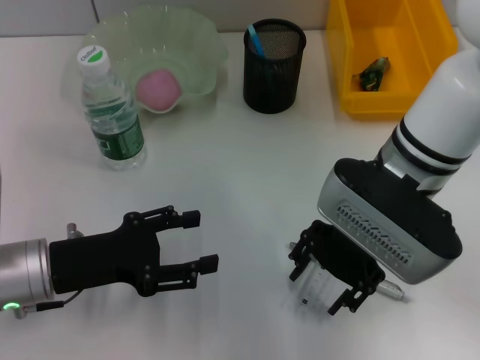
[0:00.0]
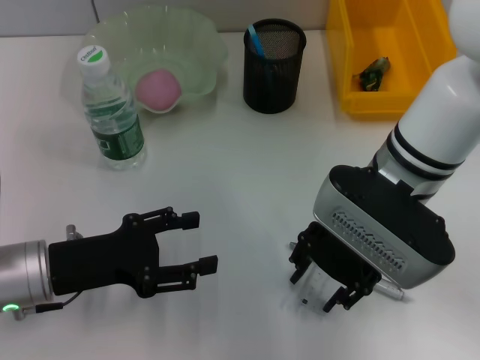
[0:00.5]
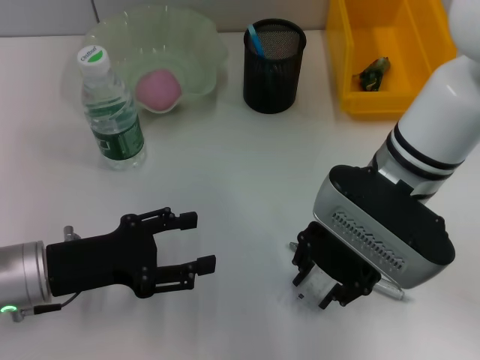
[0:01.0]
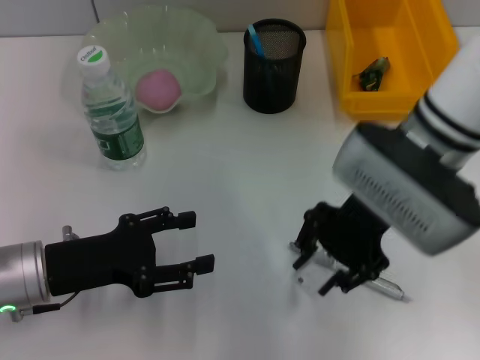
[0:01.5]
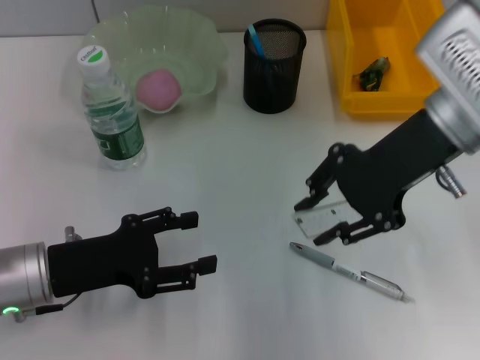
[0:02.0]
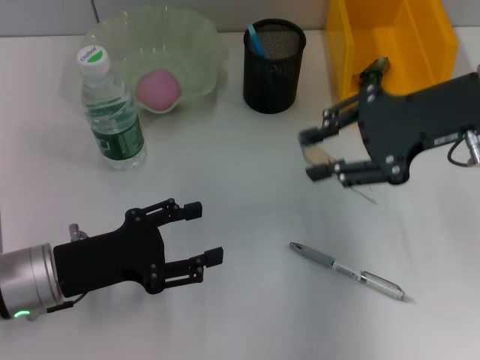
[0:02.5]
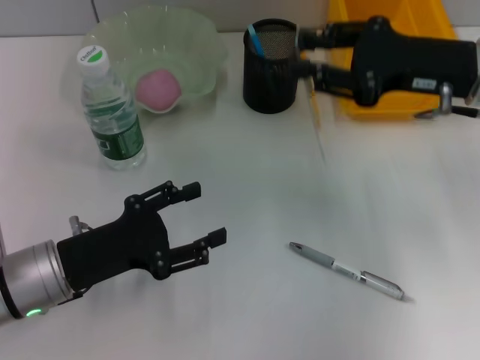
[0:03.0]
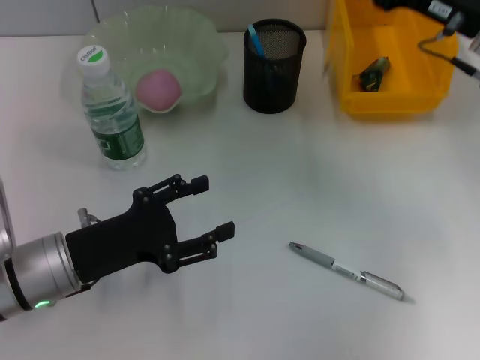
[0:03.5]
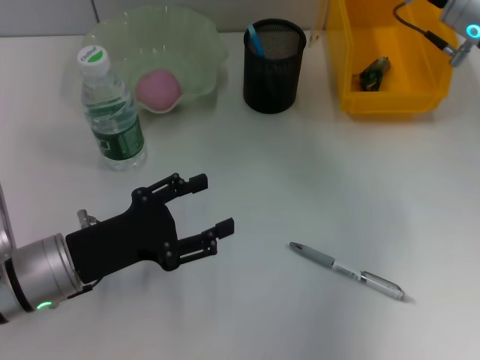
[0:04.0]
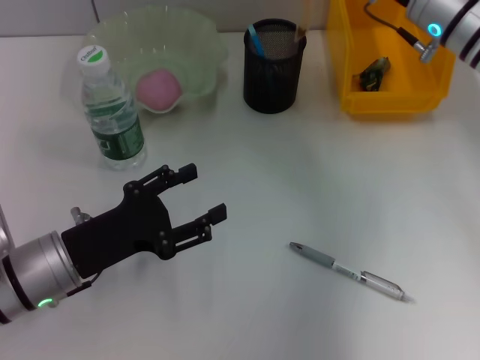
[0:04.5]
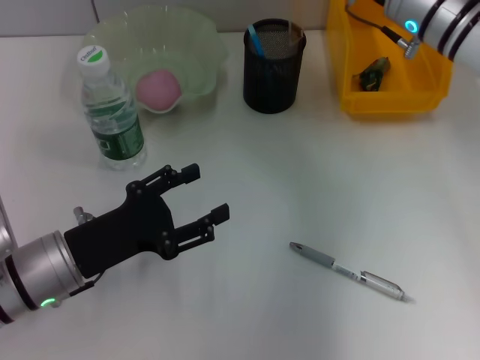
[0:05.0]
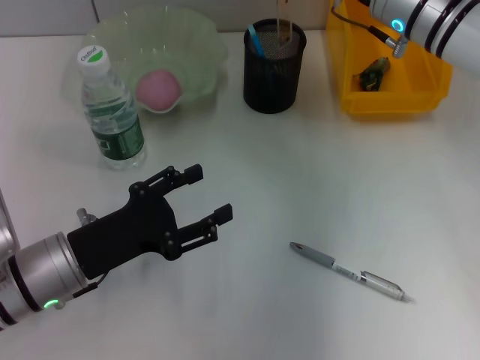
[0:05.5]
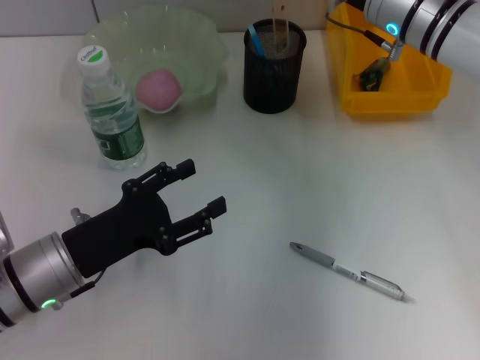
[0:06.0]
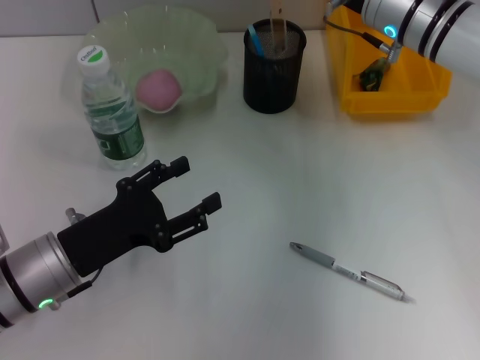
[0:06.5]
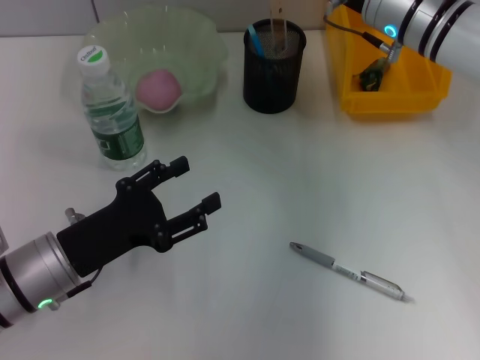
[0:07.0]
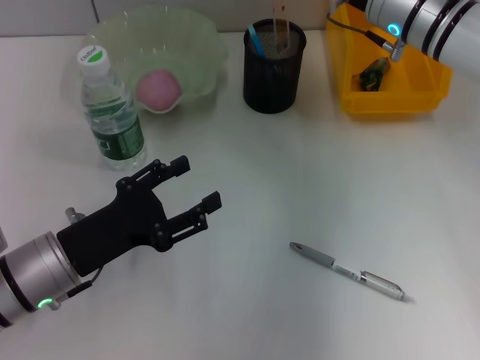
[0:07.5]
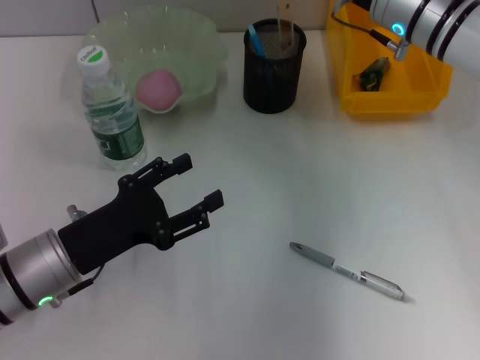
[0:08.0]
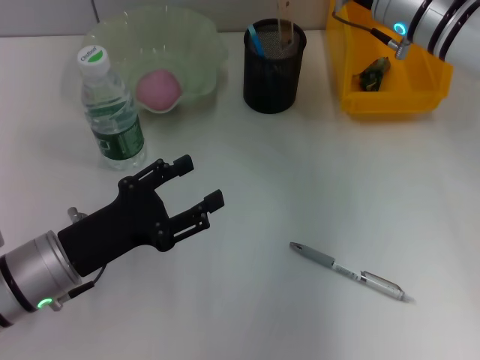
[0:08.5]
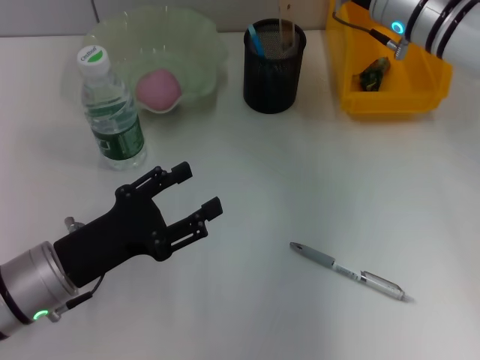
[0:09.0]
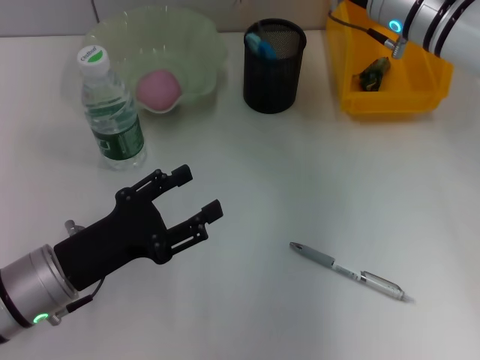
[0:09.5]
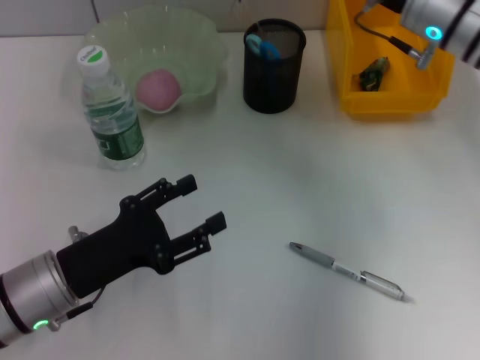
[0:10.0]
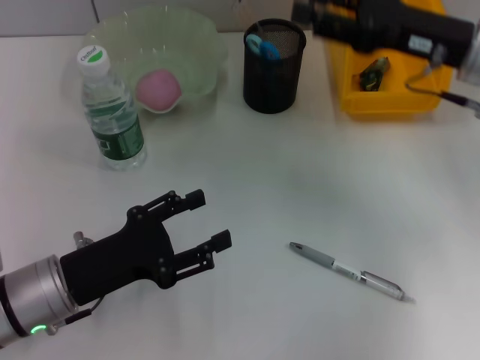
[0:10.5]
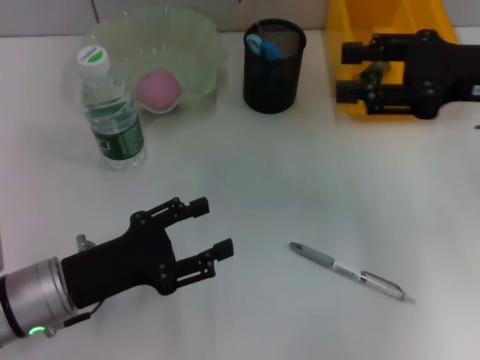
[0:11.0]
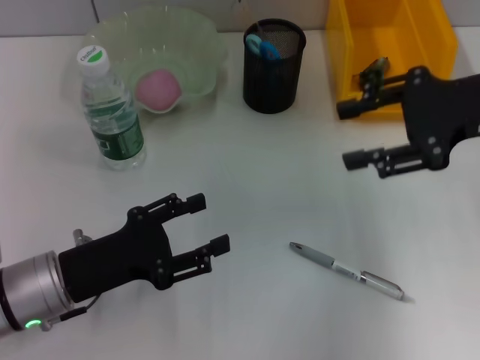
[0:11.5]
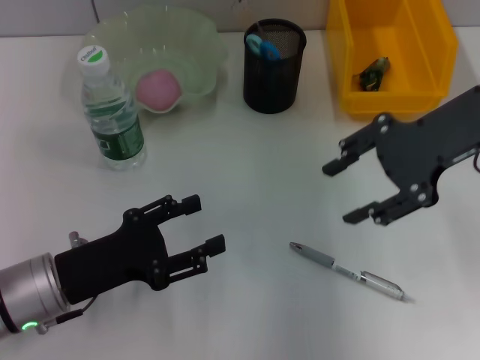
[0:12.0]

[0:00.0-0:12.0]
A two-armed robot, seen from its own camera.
Step, 0:01.5 to 0:10.0: Place the ruler into the pen holder with the right hand.
0:00.0 to 0:02.0: The right gripper moves upward and to the right, approximately 10 cm, and closes up.
0:02.0 to 0:04.0: The right gripper moves forward, roughly 5 cm.
0:04.0 to 0:06.0: The right gripper goes about 5 cm to the left.
0:06.0 to 0:08.0: Neither gripper changes place.
0:08.0 to 0:10.0: The grippers stay close to where they were, moving slightly.
0:10.0 to 0:12.0: The right gripper heads backward, covering roughly 5 cm.

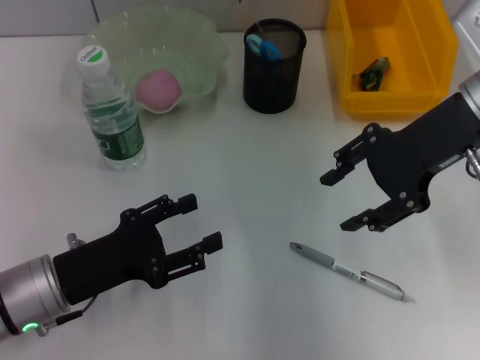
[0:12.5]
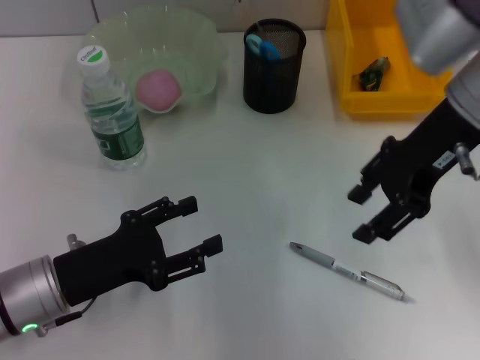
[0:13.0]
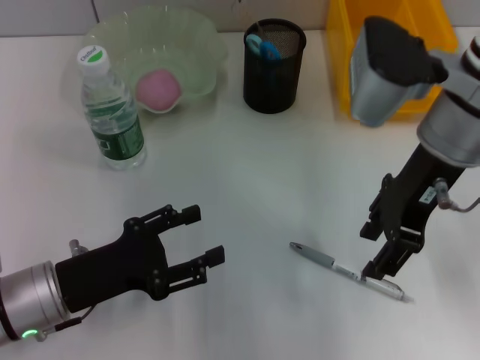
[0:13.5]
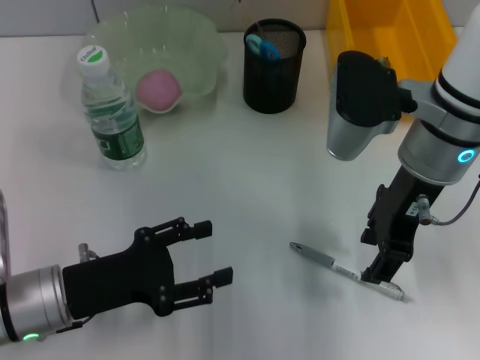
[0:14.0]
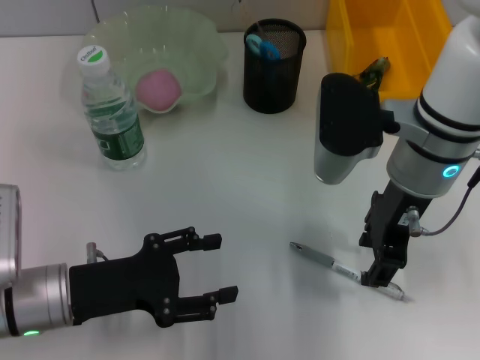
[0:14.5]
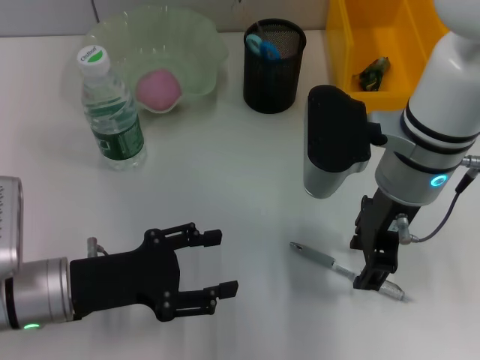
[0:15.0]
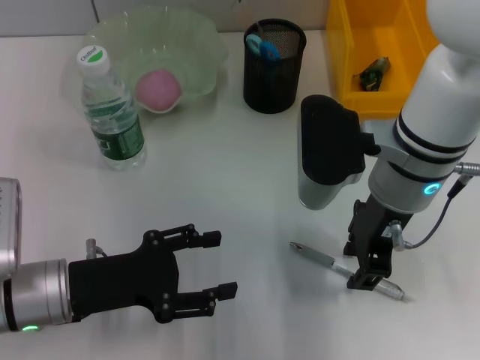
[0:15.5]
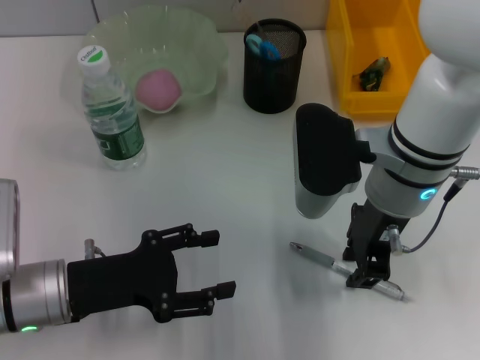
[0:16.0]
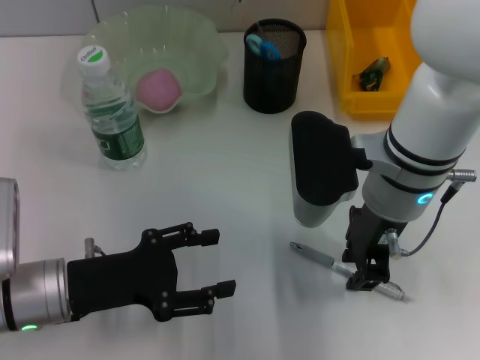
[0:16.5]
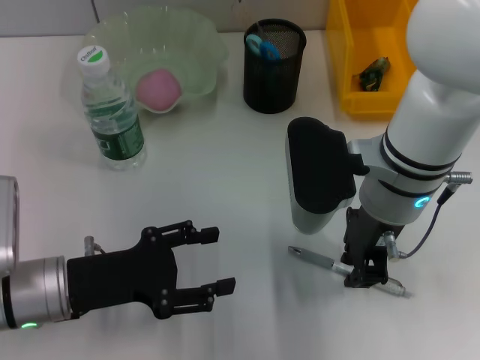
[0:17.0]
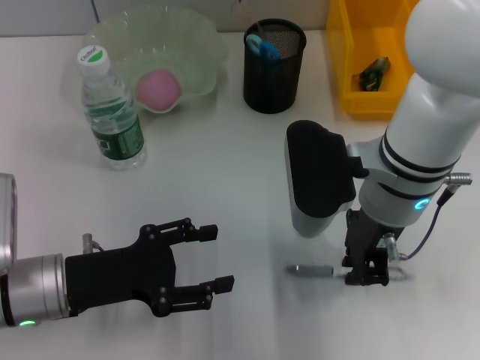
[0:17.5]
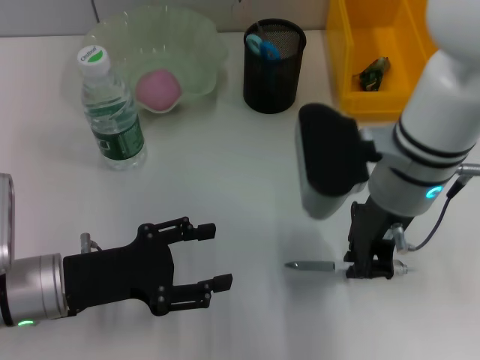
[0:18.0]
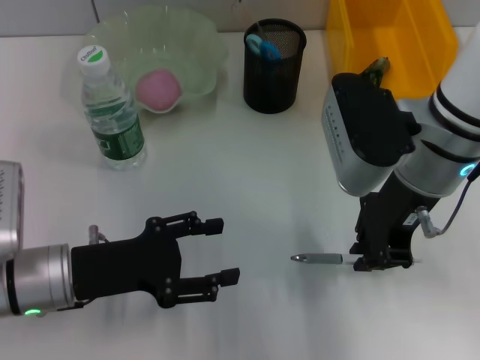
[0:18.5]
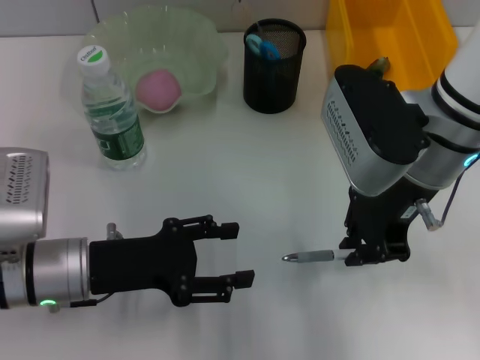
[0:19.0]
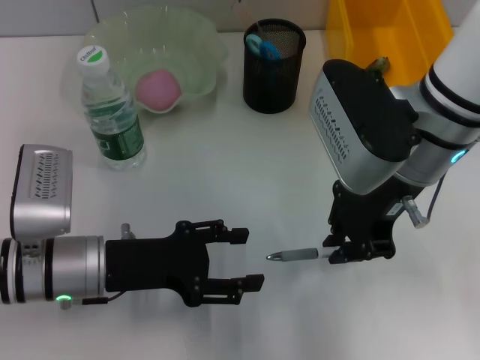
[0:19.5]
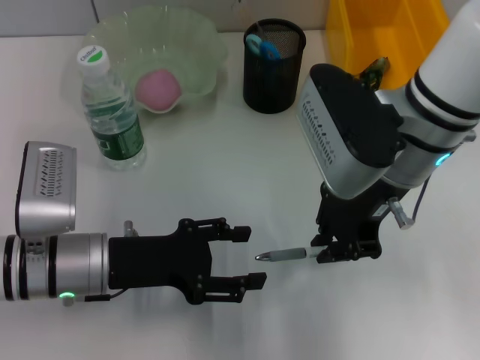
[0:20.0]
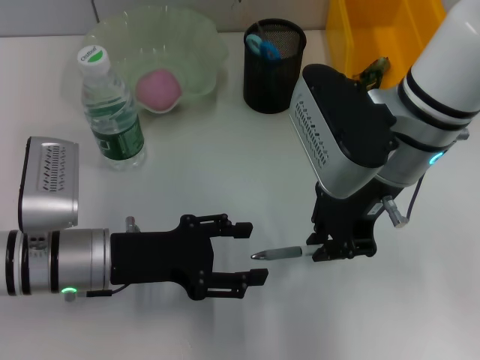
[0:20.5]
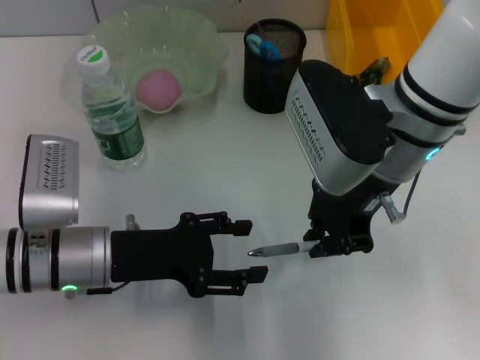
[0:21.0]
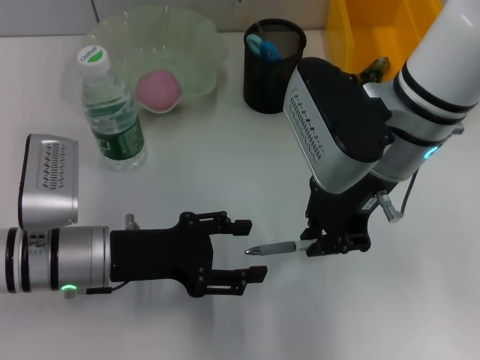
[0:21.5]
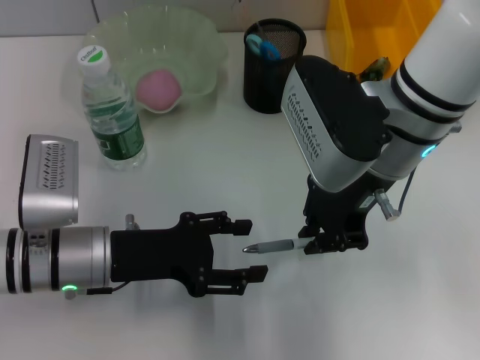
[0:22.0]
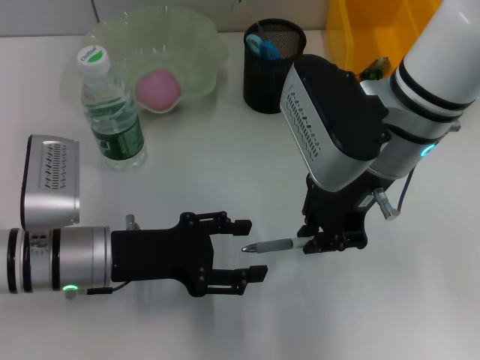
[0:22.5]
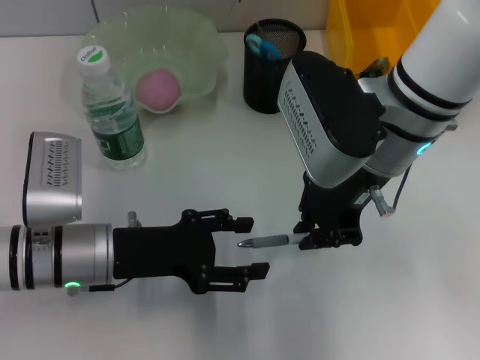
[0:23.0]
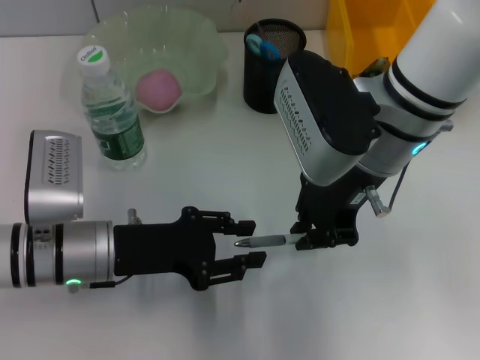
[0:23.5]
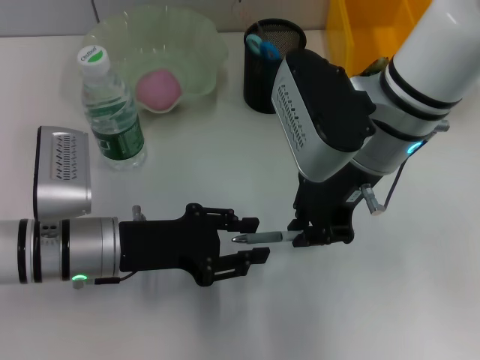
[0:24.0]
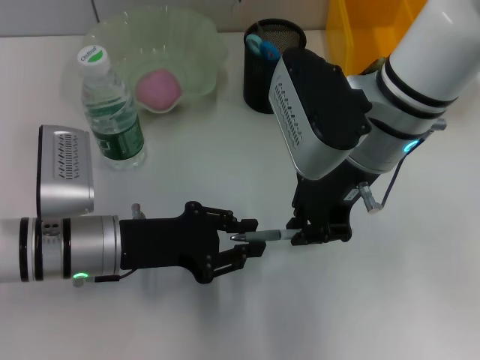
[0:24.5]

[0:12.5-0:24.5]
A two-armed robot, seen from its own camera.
Step, 0:12.5 to 0:17.5: Grab the gray spring-action pen with the right hand.
0:12.5 to 0:14.5: The right gripper moves to the left, about 5 cm.
0:20.5 to 0:22.5: Neither gripper changes place.
0:22.5 to 0:24.5: The left gripper closes.

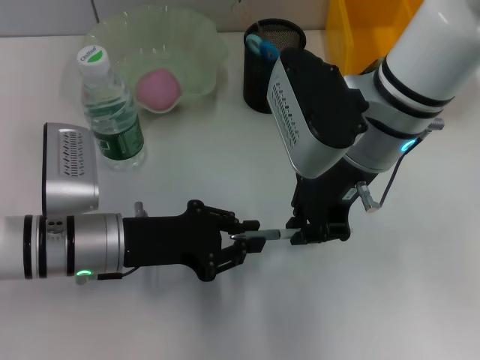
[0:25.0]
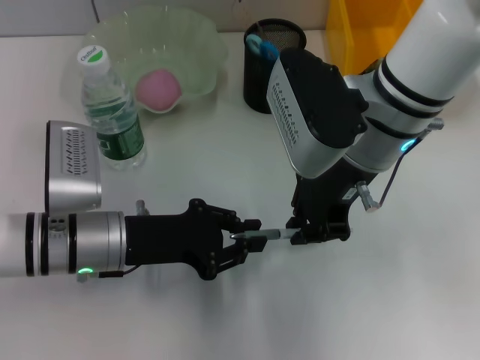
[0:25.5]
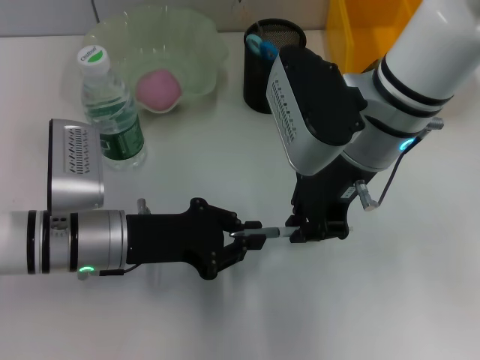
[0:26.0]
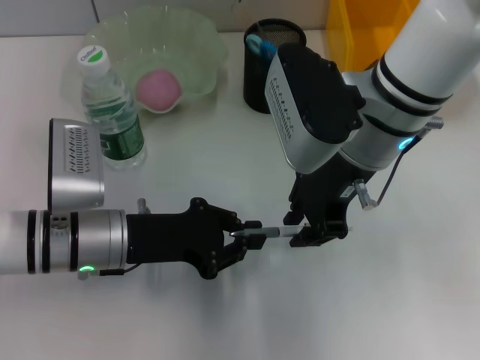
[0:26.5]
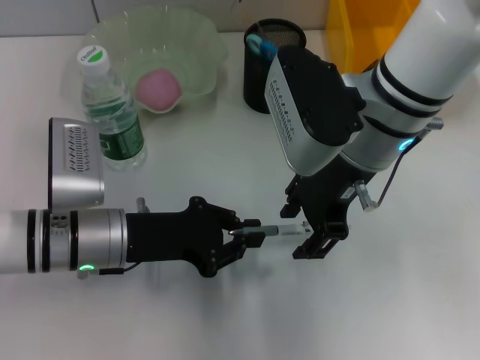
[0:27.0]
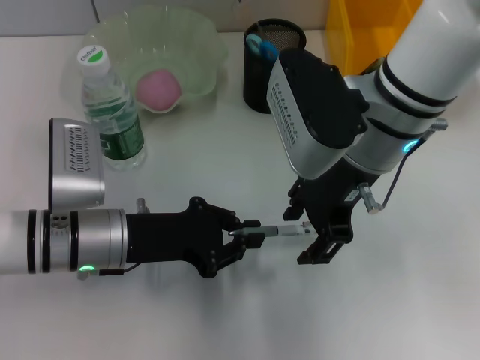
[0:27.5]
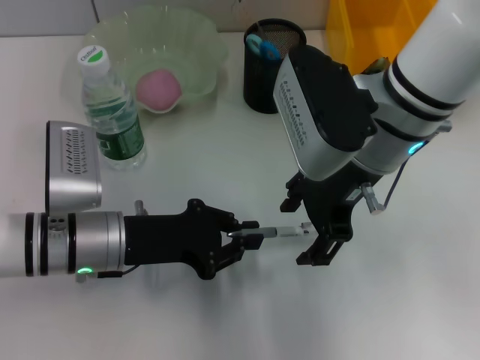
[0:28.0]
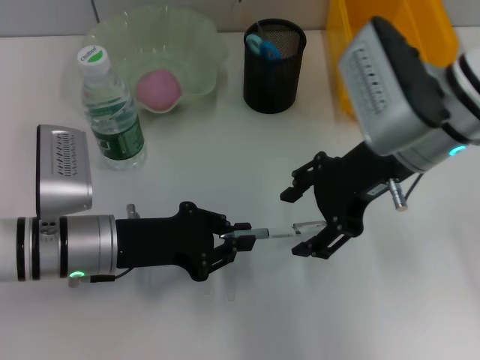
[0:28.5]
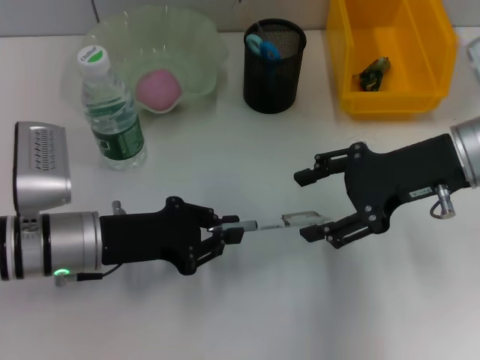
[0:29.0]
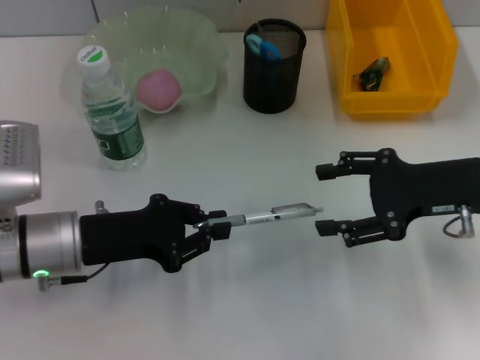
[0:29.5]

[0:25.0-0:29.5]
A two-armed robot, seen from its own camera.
0:25.0 to 0:27.0: The right gripper opens up.
0:27.0 to 0:29.5: The right gripper heads to the right and downward, covering some 15 cm.
